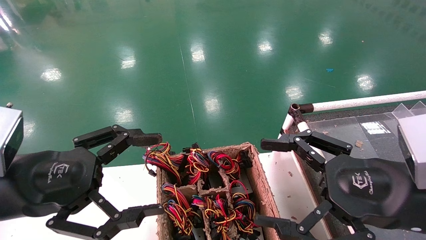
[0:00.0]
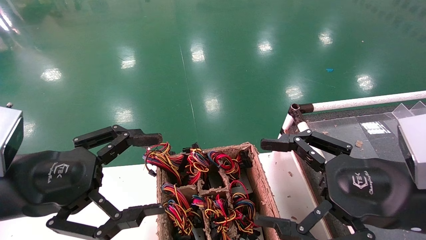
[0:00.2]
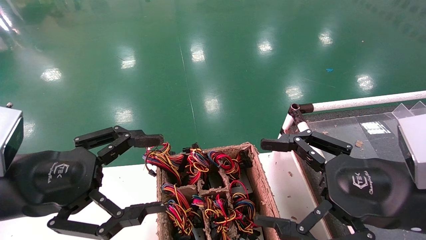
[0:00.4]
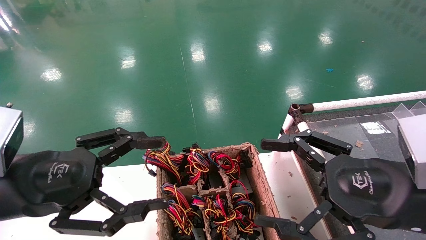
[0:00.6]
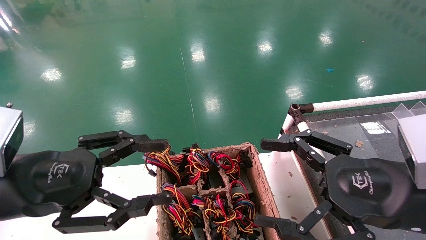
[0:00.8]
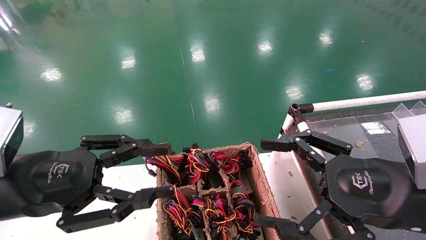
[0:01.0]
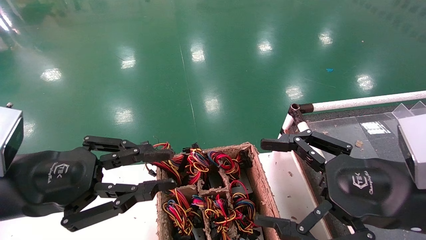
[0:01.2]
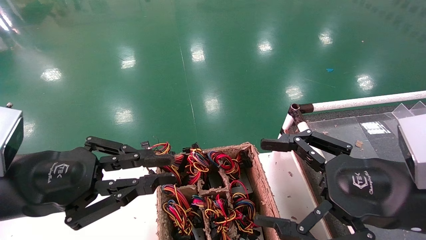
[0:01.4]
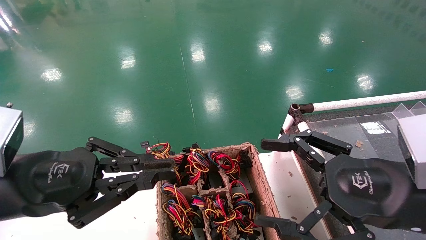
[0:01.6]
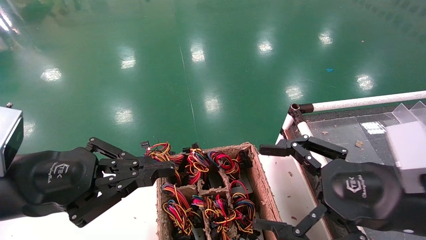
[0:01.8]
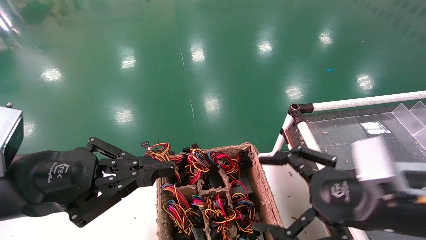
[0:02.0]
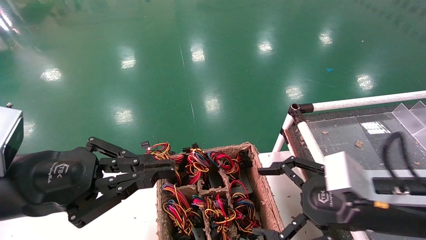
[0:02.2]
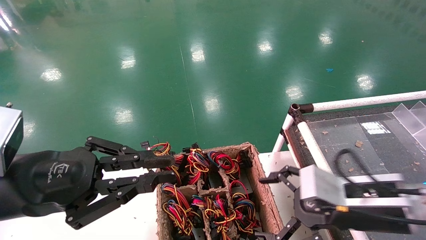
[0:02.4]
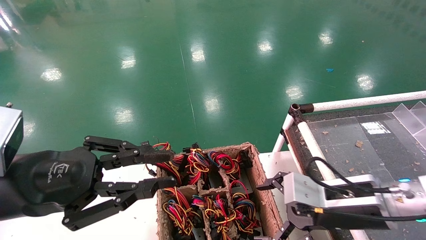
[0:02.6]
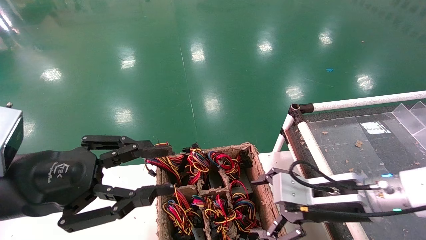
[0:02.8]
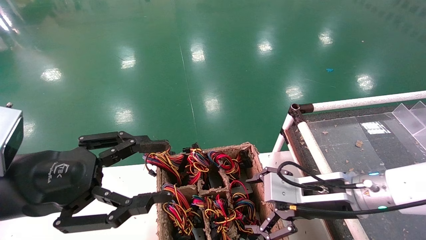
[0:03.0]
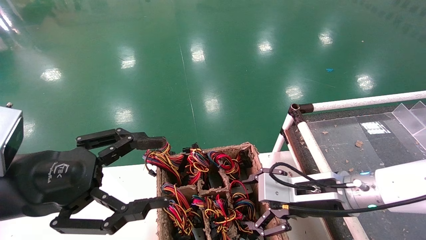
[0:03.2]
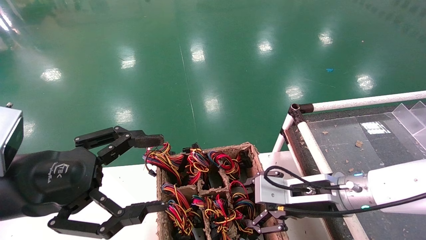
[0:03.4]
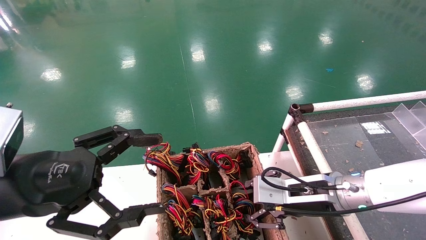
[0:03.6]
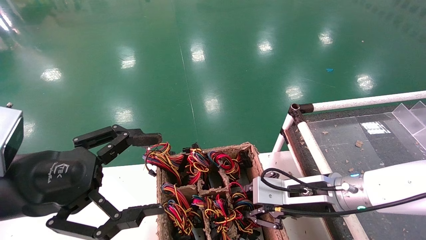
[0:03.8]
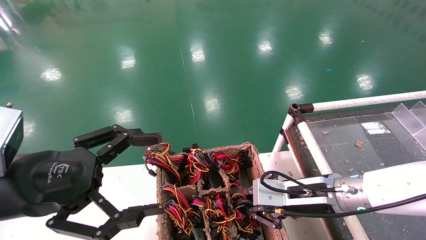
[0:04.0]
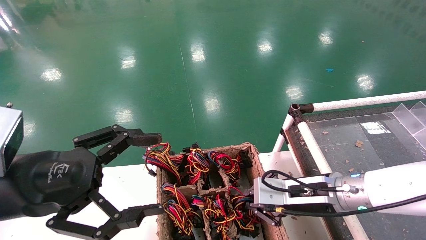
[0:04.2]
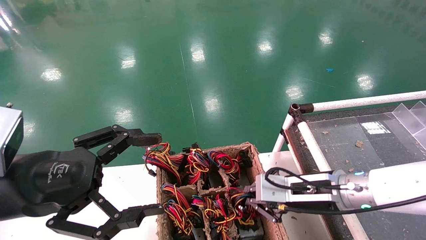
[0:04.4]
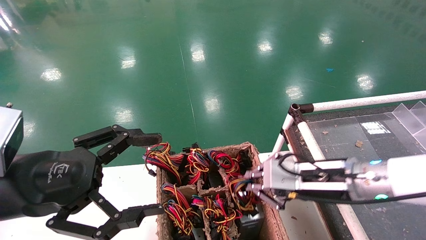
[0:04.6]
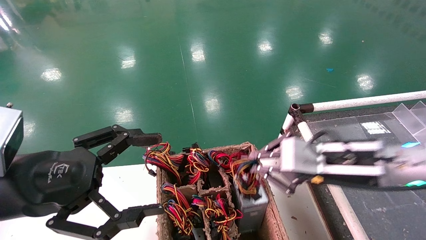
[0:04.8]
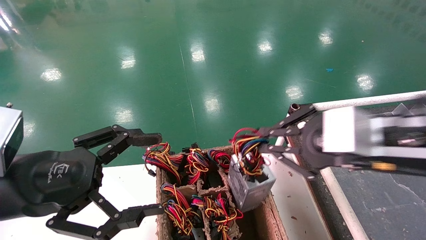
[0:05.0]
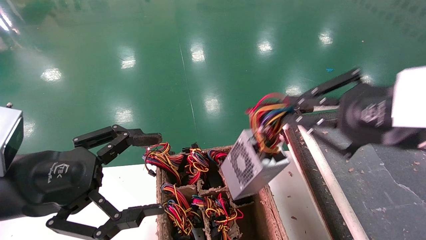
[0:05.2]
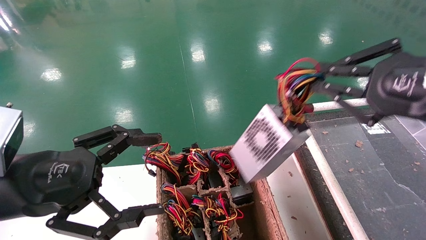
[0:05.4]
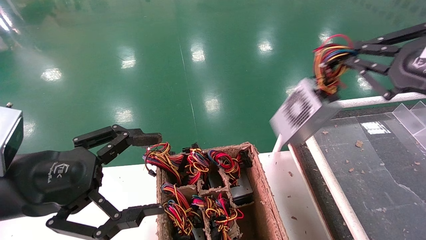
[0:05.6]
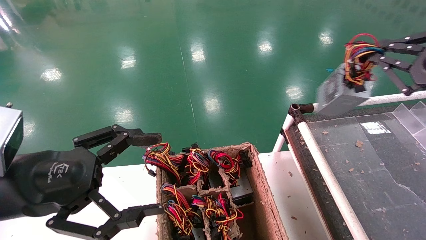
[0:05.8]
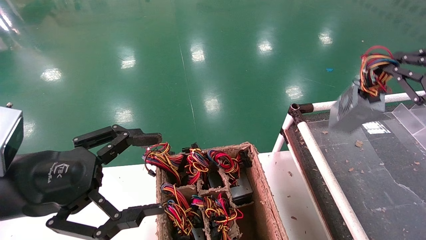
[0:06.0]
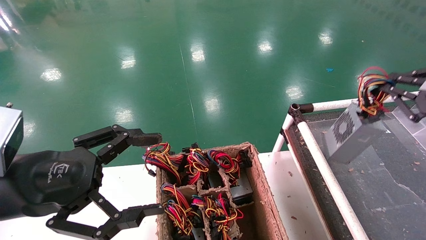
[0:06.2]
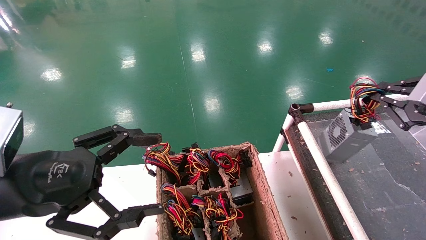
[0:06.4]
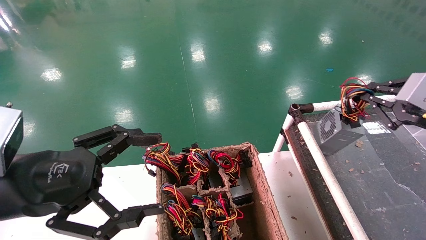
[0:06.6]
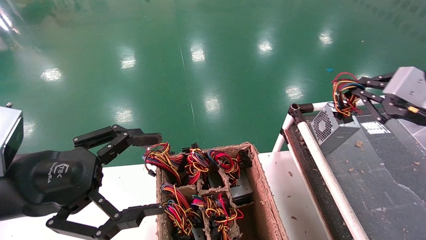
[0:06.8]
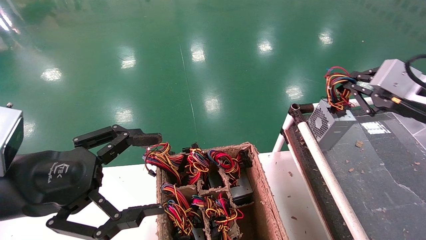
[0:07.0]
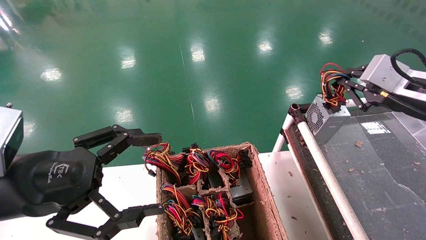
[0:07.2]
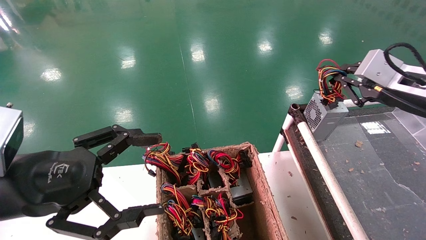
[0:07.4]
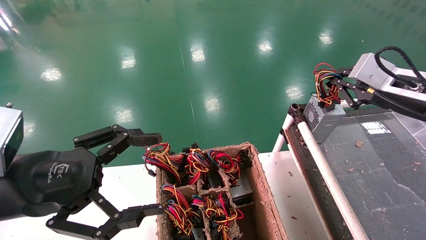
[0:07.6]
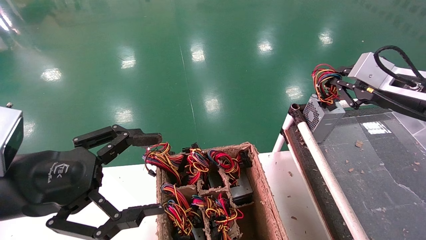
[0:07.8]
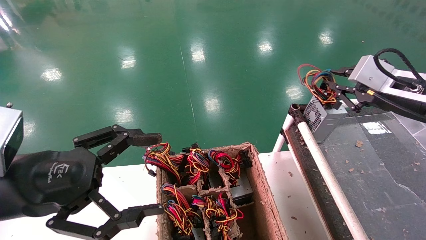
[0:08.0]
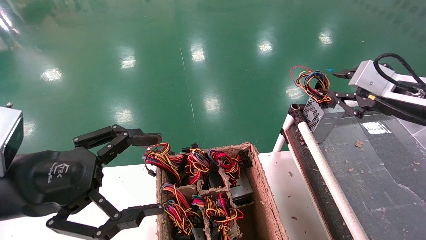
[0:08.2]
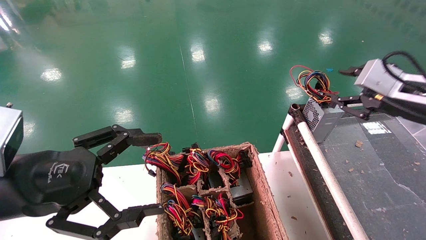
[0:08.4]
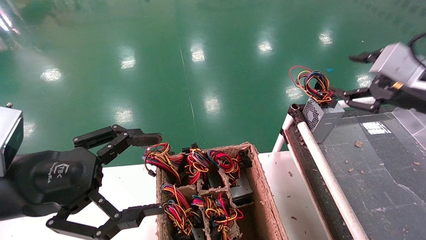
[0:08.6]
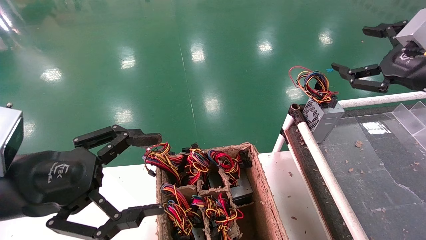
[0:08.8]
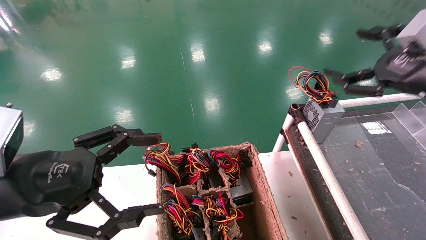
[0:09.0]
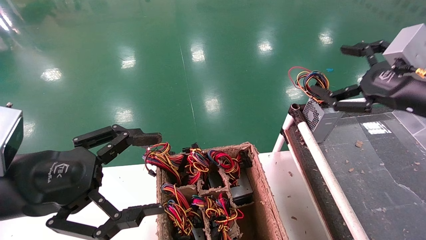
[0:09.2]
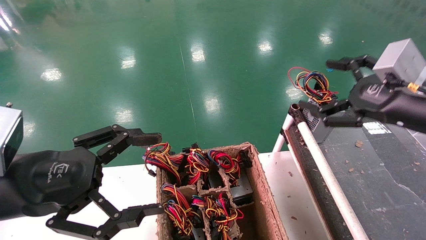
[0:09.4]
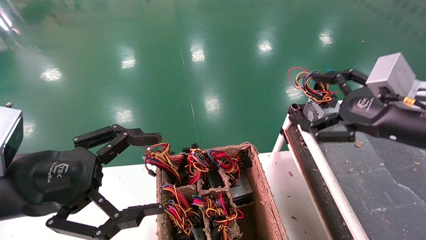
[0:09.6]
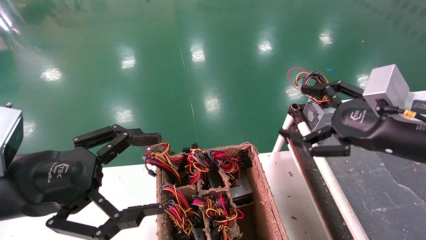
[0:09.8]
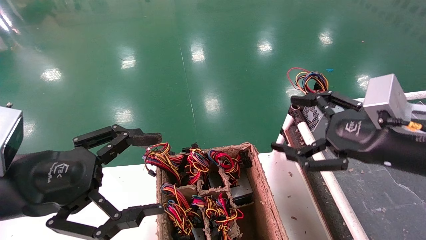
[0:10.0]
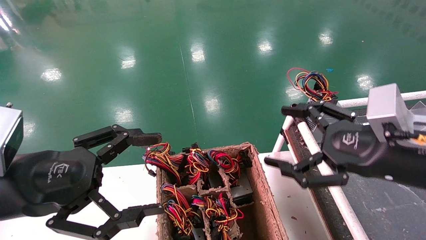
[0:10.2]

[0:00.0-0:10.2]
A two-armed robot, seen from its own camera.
Step, 0:02.0 to 0:04.2: Grab and lift the power supply from the large box.
Step, 0:04.4 to 0:08.0: Place the power supply on the operating table.
0:00.0 to 0:01.4: The left gripper closes its fingers.
0:01.4 to 0:03.0: The right gripper heads forward, downward and to the left, covering about 15 cm.
0:03.0 to 0:04.4: The left gripper opens up; the right gripper closes up.
0:04.4 to 0:05.8: The right gripper goes approximately 25 cm to the right and upward.
0:05.8 to 0:07.2: The right gripper goes approximately 5 cm forward.
0:07.2 to 0:08.8: The right gripper opens.
0:08.8 to 0:10.2: The right gripper goes some 10 cm to the left, downward and backward.
